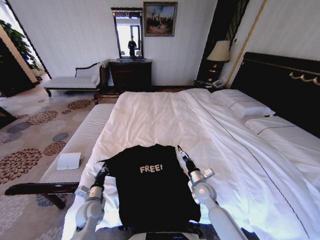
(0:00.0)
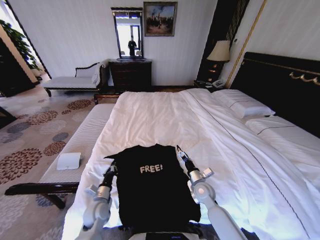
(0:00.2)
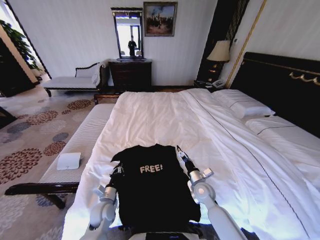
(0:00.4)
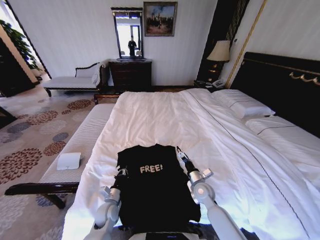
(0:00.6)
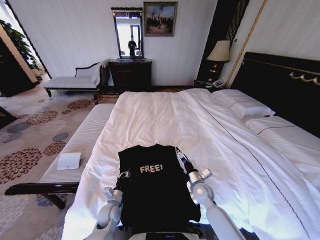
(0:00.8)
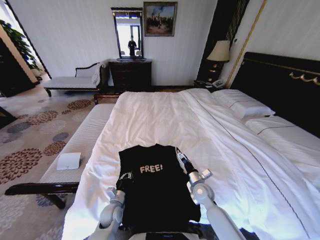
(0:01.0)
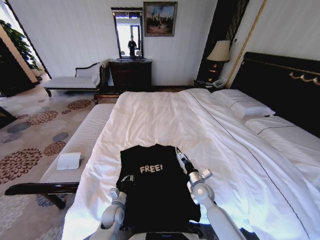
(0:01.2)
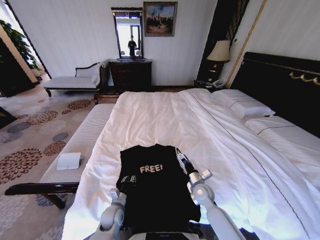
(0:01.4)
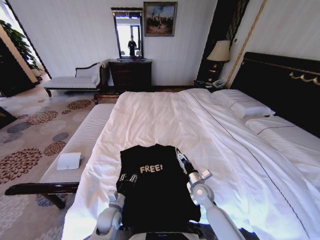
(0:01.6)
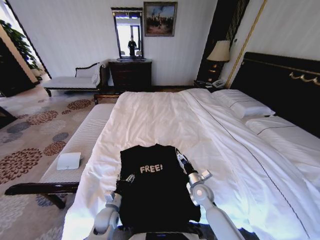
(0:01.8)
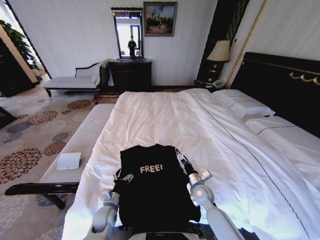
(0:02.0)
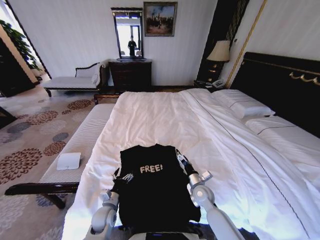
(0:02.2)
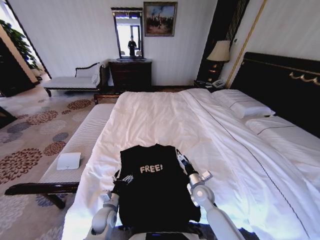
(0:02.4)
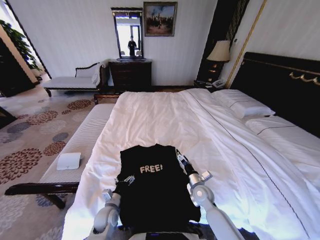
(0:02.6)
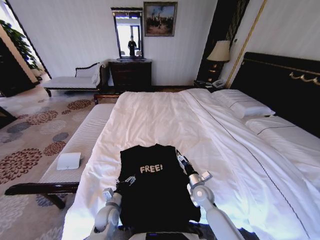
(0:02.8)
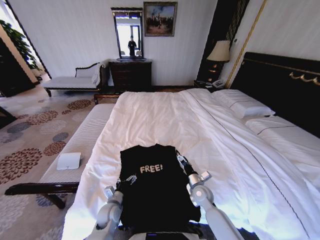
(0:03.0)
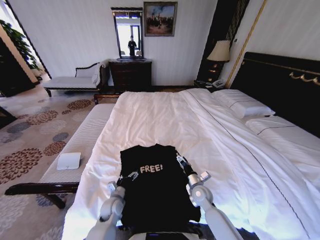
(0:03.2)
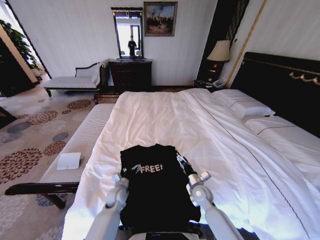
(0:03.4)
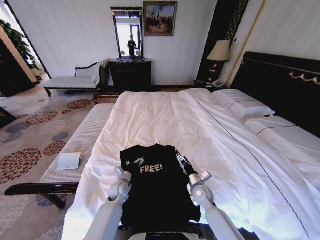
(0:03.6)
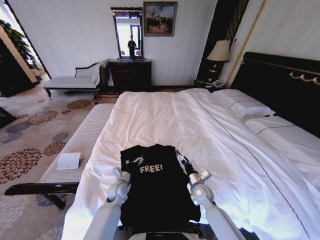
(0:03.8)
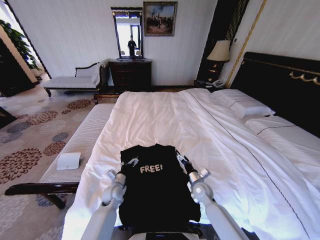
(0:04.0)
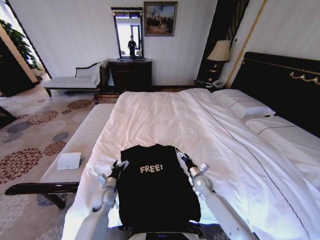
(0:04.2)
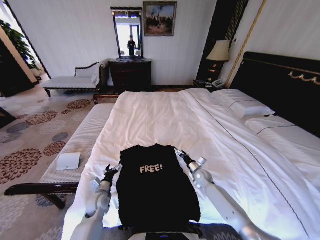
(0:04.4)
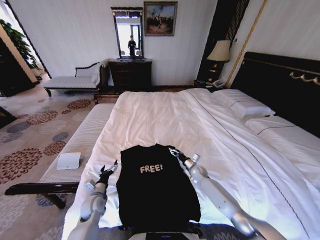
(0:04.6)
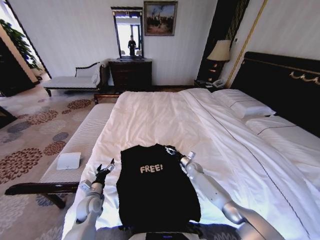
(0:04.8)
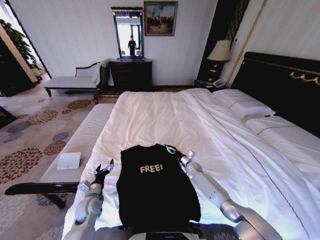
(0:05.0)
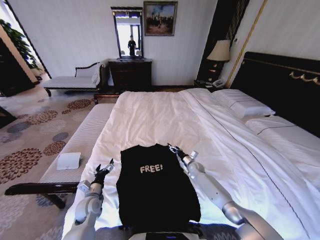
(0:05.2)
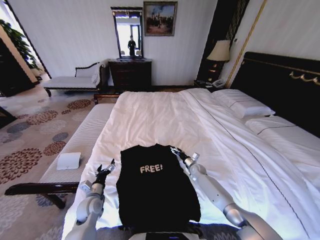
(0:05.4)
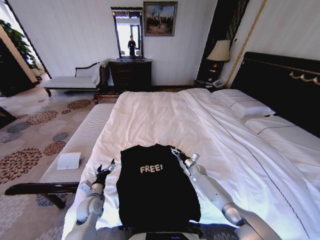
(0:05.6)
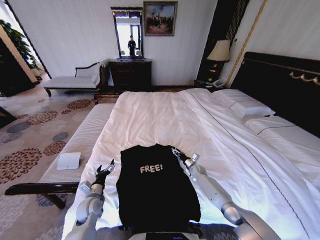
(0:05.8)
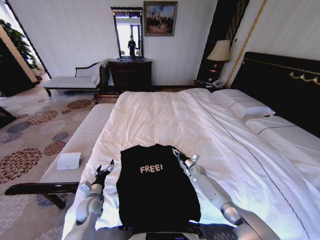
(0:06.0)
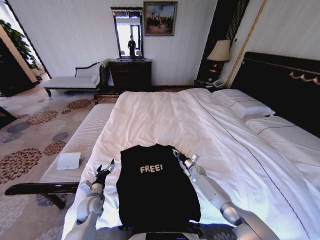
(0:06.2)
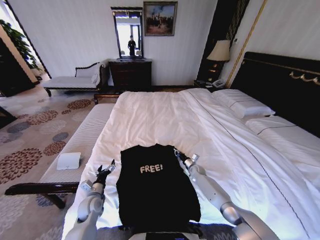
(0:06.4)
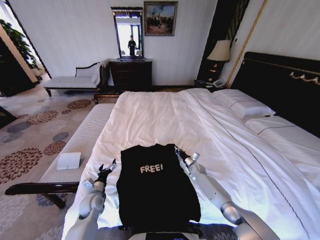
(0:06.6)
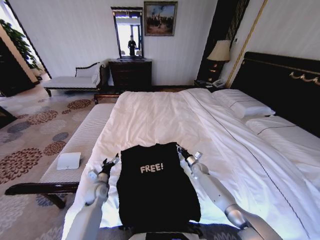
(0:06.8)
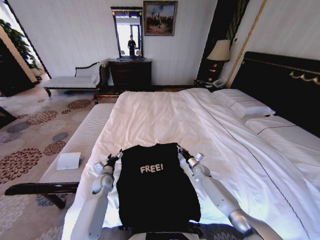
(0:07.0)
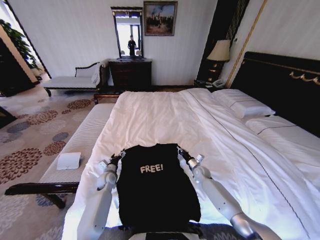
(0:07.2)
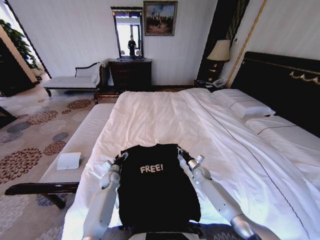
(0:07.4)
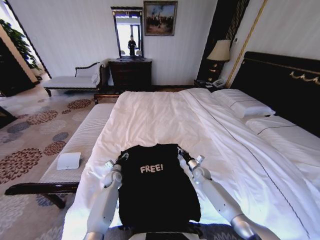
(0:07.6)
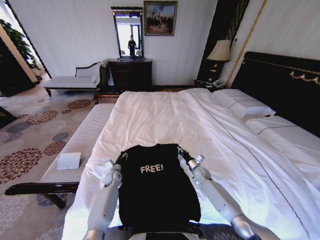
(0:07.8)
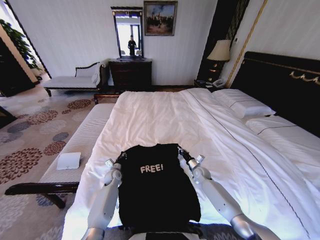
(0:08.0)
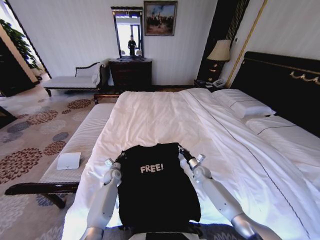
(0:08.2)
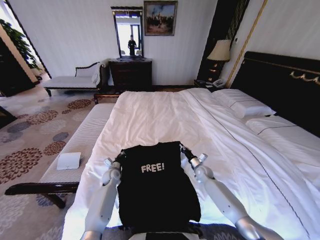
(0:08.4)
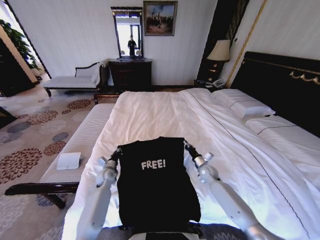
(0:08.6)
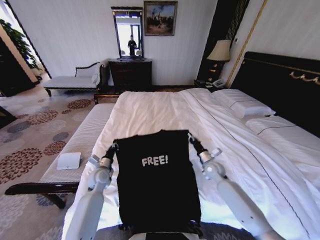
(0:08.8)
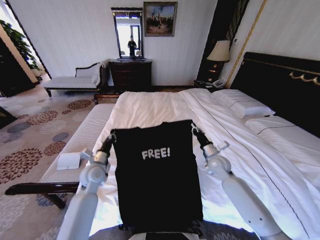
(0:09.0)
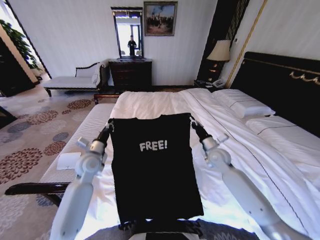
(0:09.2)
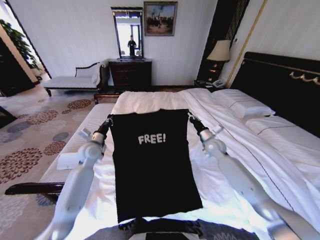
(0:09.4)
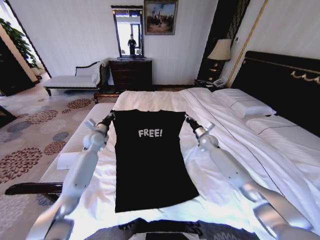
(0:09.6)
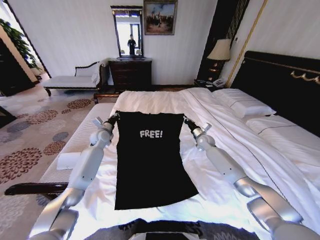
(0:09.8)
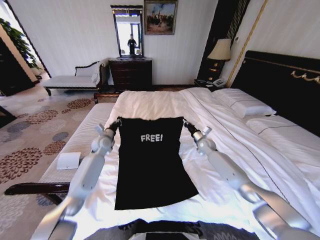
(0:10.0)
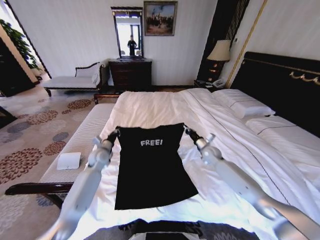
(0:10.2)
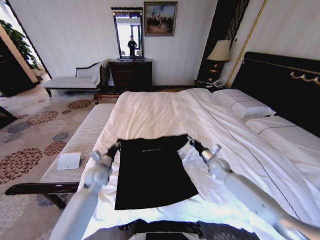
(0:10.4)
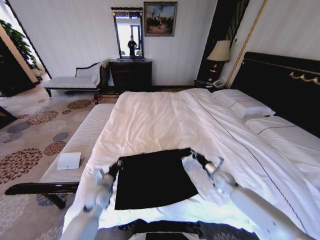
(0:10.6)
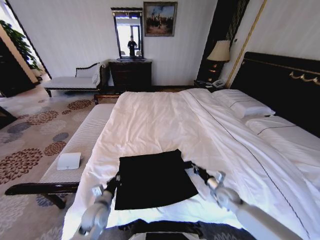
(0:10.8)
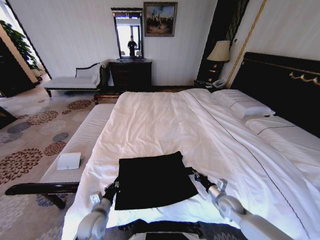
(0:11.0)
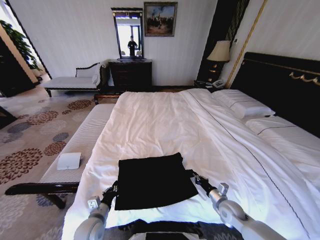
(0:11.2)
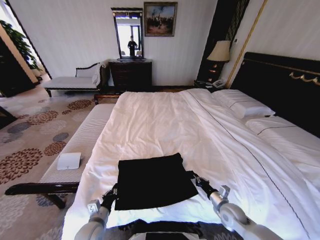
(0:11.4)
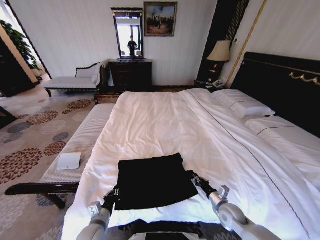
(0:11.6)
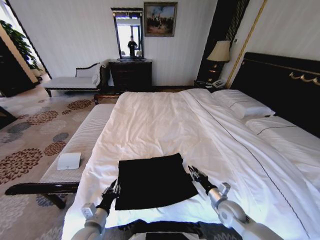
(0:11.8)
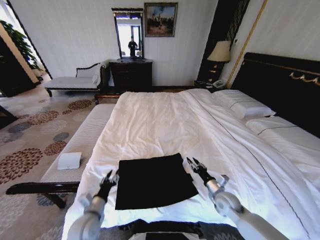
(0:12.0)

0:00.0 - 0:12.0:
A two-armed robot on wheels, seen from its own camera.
Task of the whole recording: Fold the clothes on the bed.
0:00.0 - 0:01.6: The left gripper goes some 10 cm to the right, and opens.
0:01.6 - 0:03.0: The left gripper opens.
0:03.0 - 0:04.4: The left gripper travels to the left by some 5 cm, while the right gripper moves forward and to the right, roughly 10 cm.
0:04.4 - 0:06.0: The right gripper shifts roughly 10 cm forward and downward, and closes its fingers.
0:06.0 - 0:07.6: The left gripper is displaced forward by roughly 15 cm. Meanwhile the right gripper closes up.
0:07.6 - 0:09.0: The two grippers go about 20 cm upward. The left gripper closes.
0:09.0 - 0:10.4: The left gripper goes forward and returns, some 20 cm each way; the right gripper goes roughly 5 cm downward, and moves approximately 15 cm forward and comes back.
0:10.4 - 0:12.0: Both grippers travel together backward, about 15 cm. The left gripper opens up. The right gripper opens its fingers.

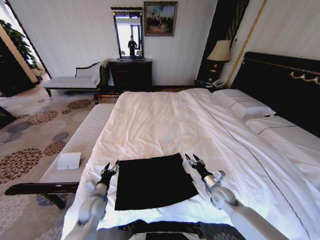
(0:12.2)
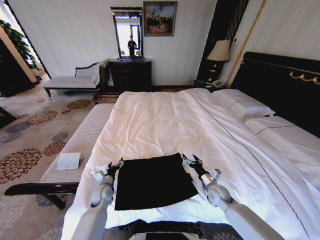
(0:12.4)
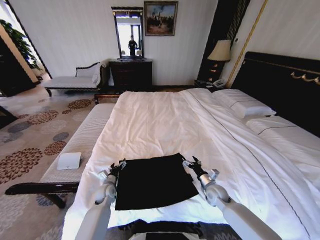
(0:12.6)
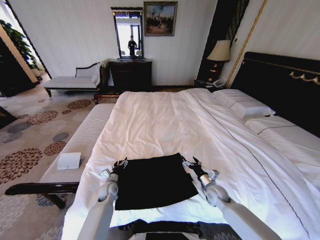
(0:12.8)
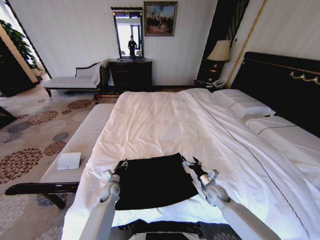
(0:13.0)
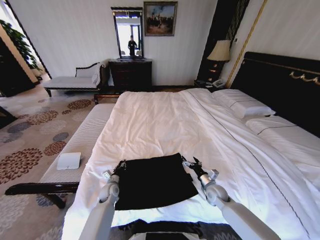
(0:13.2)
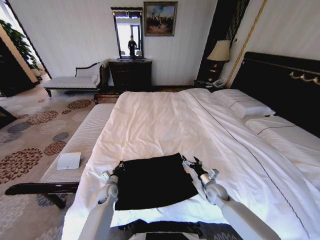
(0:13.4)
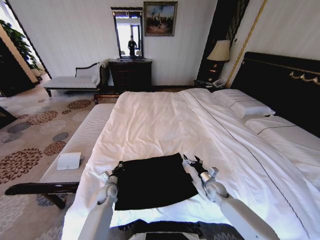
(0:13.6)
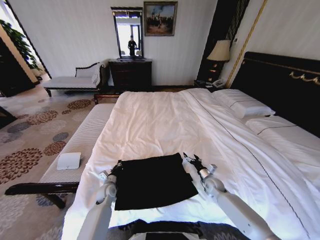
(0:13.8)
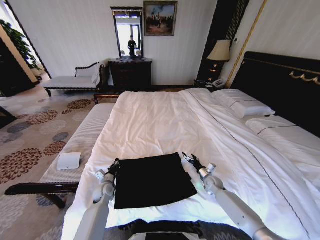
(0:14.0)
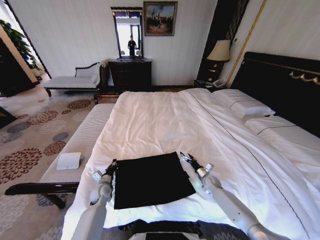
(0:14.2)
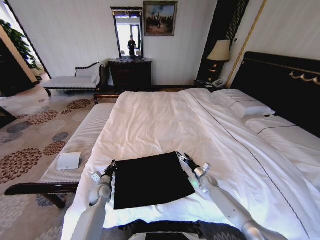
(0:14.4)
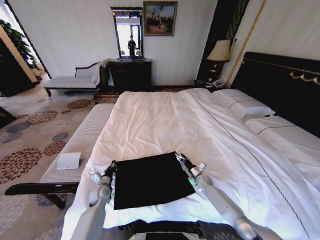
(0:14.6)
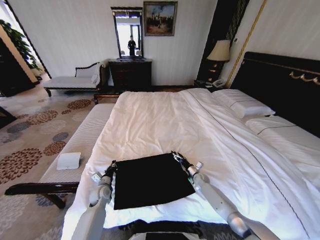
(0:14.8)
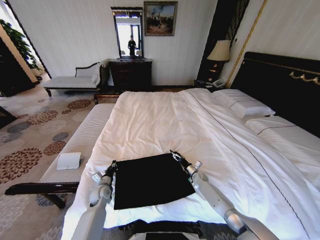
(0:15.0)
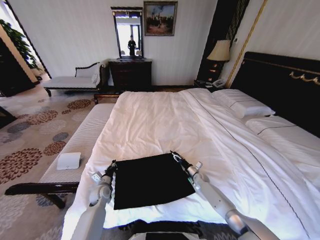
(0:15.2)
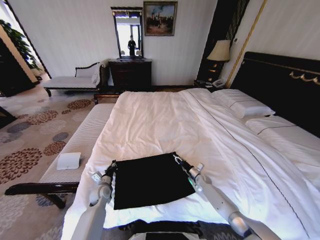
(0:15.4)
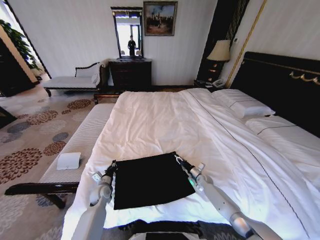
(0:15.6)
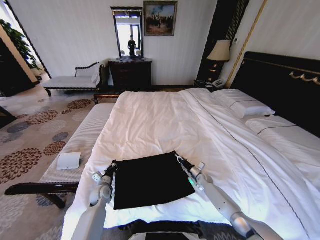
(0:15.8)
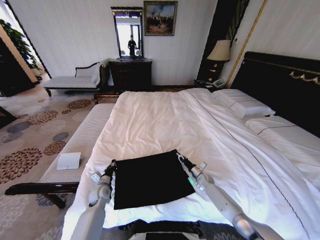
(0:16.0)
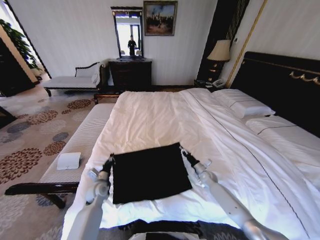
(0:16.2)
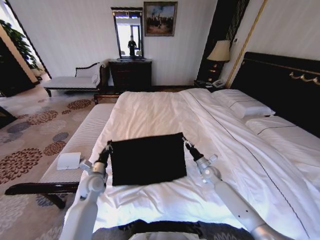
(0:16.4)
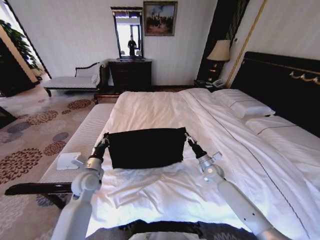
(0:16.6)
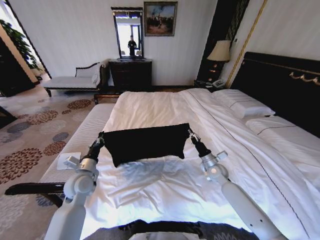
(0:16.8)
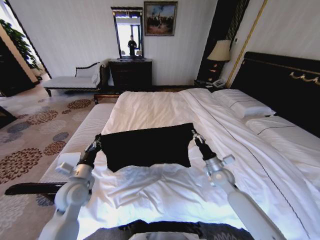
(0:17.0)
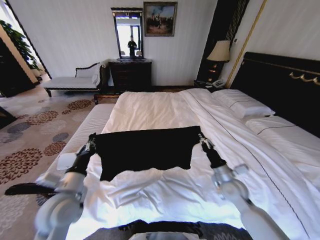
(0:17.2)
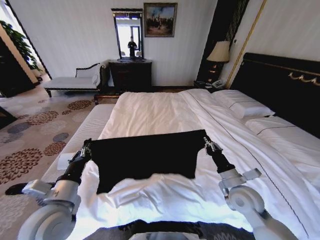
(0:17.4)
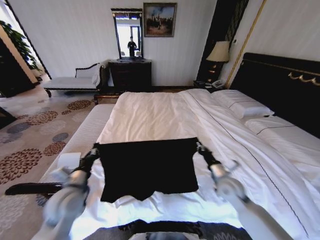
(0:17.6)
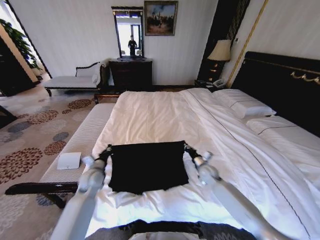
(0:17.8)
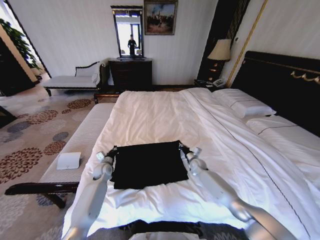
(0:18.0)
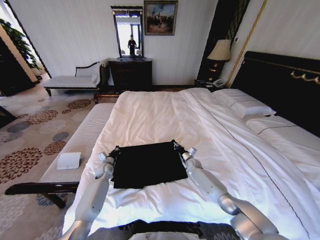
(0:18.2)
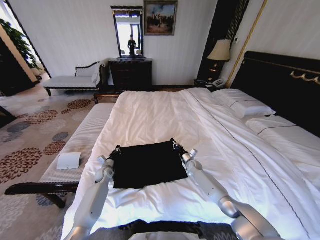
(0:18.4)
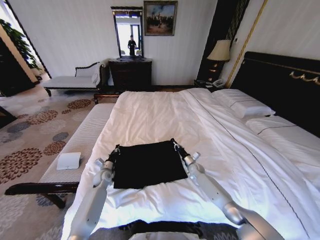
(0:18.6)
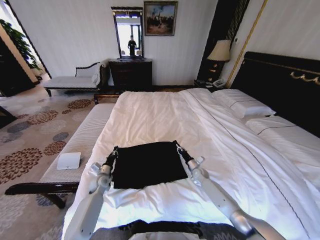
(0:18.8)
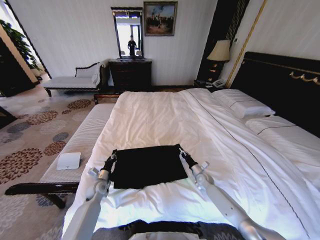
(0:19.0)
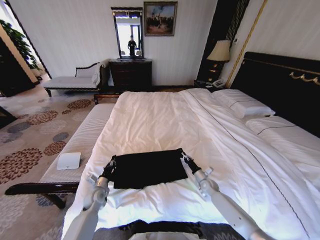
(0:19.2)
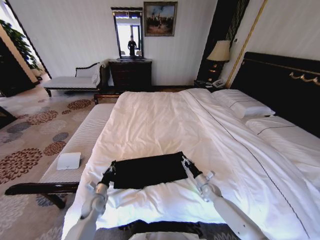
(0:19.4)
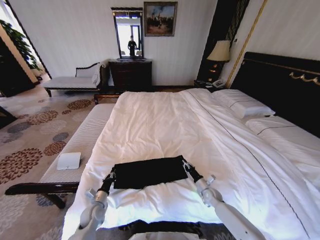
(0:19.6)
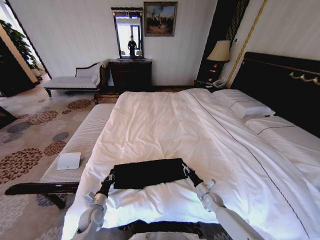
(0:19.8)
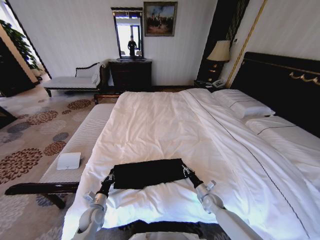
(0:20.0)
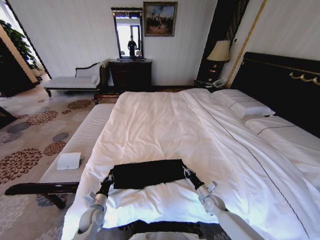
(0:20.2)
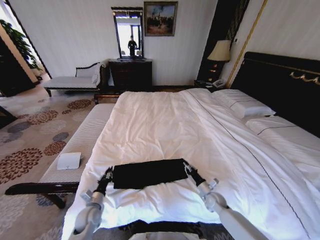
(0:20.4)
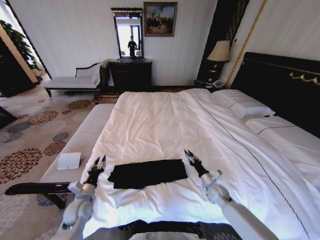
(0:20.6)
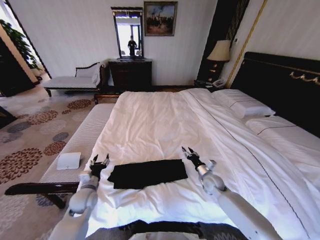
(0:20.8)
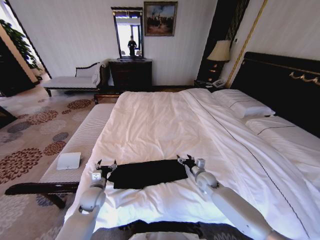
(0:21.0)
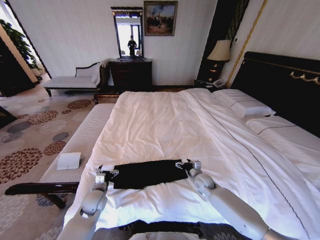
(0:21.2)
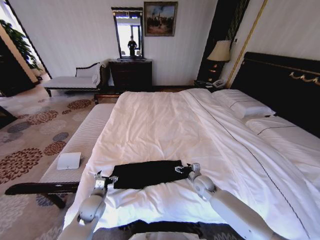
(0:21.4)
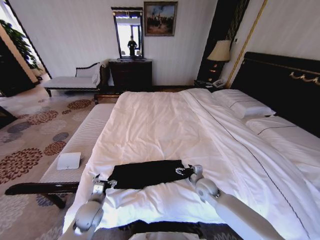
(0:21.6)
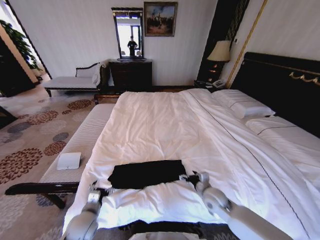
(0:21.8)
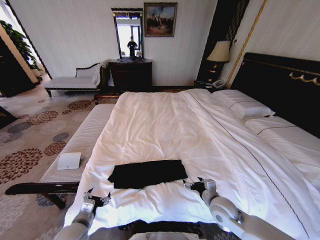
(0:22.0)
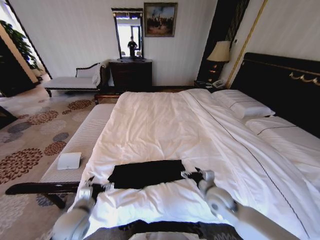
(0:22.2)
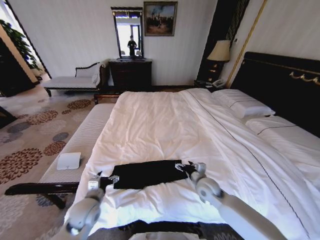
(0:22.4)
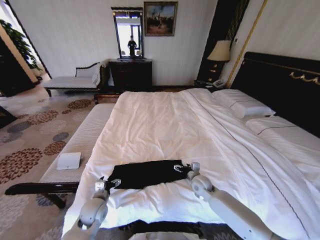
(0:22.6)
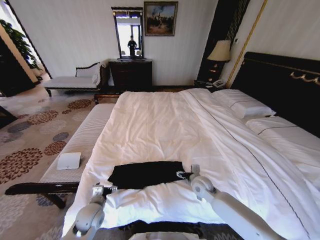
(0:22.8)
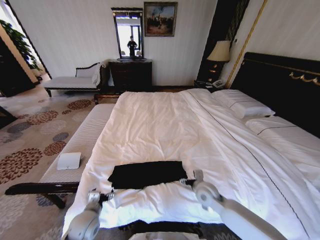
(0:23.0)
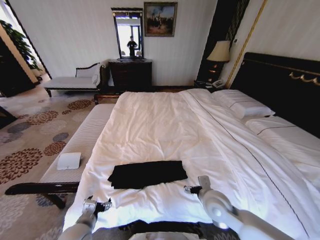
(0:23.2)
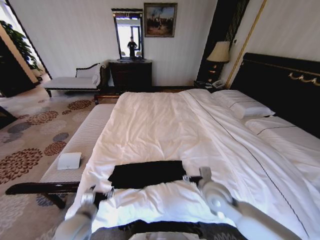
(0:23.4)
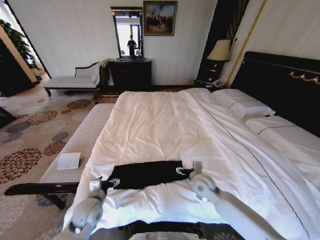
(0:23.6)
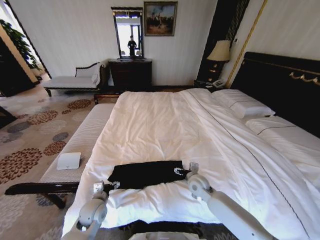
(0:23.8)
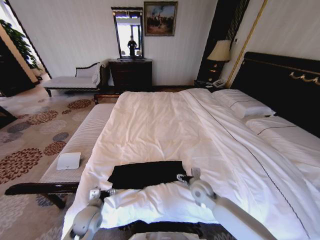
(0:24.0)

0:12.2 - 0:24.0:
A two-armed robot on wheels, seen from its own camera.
Task of the whole recording: Fold the clothes on the bed.
0:12.2 - 0:13.6: The right gripper ends up about 5 cm from where it was. The left gripper heads downward and forward, covering approximately 10 cm, and closes its fingers.
0:13.6 - 0:15.2: The right gripper shifts roughly 15 cm forward and downward.
0:15.2 - 0:16.6: The two grippers go some 15 cm upward. The right gripper closes its fingers.
0:16.6 - 0:18.2: The left gripper heads downward and forward, covering approximately 20 cm, while the right gripper shifts roughly 15 cm forward, downward and to the left.
0:18.2 - 0:19.6: Both grippers move backward, some 20 cm.
0:19.6 - 0:21.0: The left gripper shifts approximately 10 cm upward, and opens, while the right gripper shifts roughly 10 cm upward and to the left, and opens its fingers.
0:21.0 - 0:22.6: The right gripper travels backward and back again, roughly 15 cm each way.
0:22.6 - 0:24.0: The left gripper moves about 10 cm backward and comes back, while the right gripper goes upward and returns, roughly 15 cm each way.
